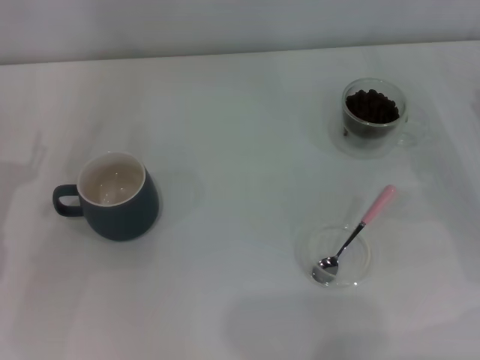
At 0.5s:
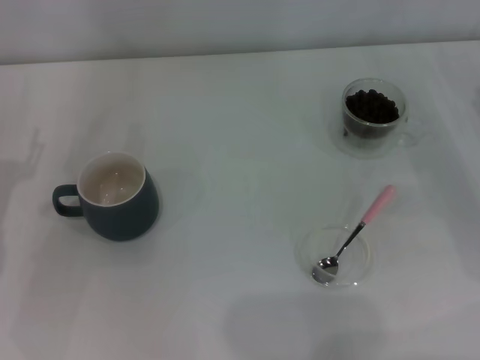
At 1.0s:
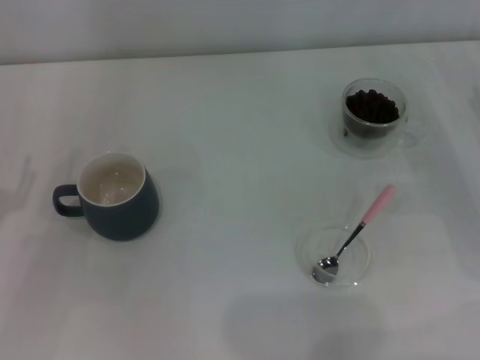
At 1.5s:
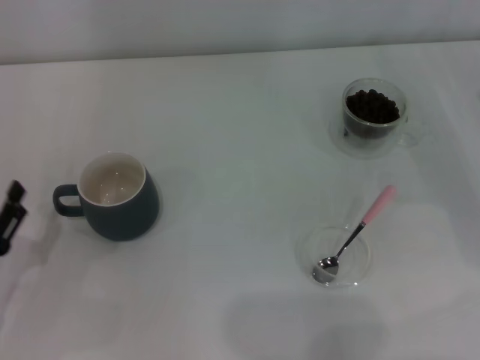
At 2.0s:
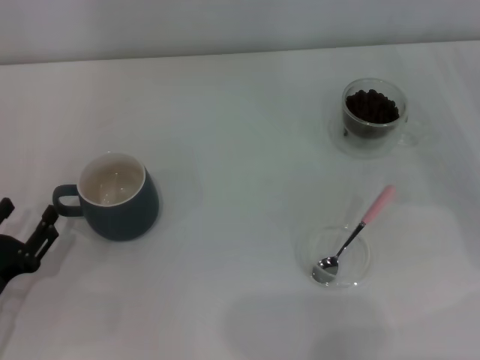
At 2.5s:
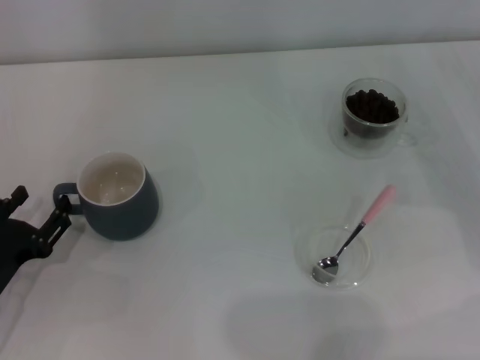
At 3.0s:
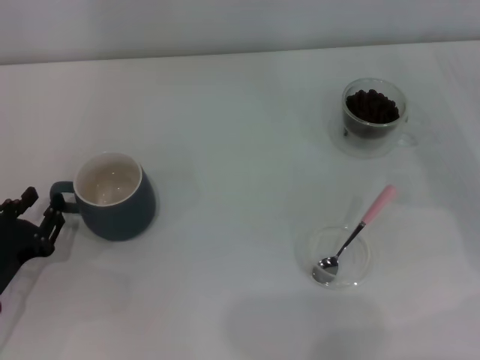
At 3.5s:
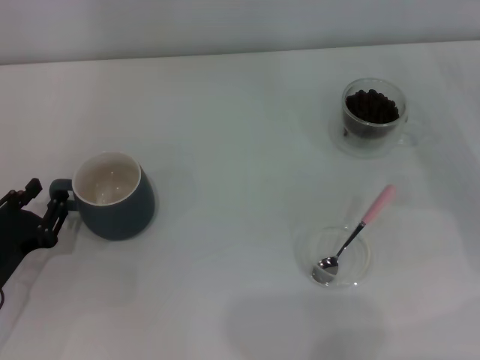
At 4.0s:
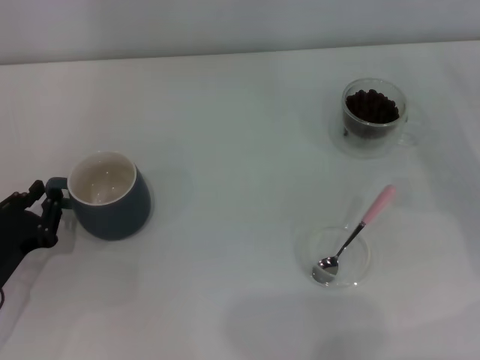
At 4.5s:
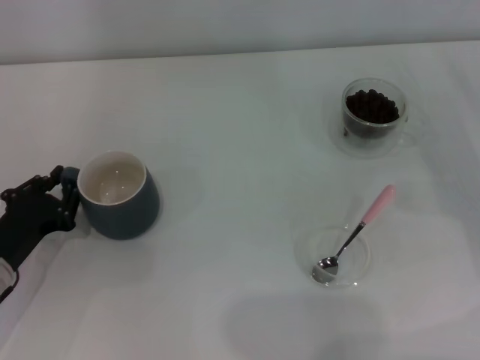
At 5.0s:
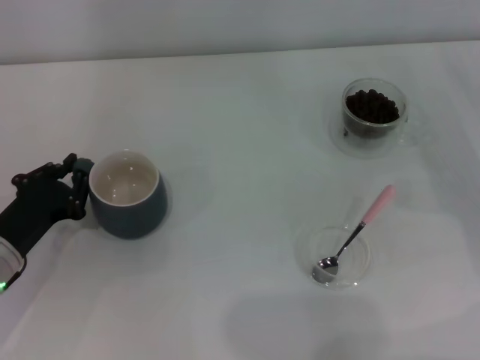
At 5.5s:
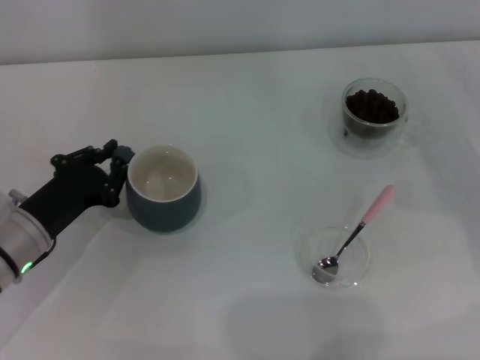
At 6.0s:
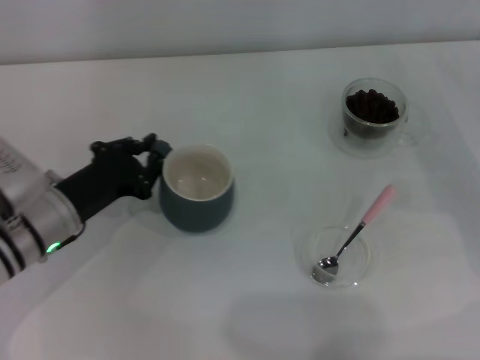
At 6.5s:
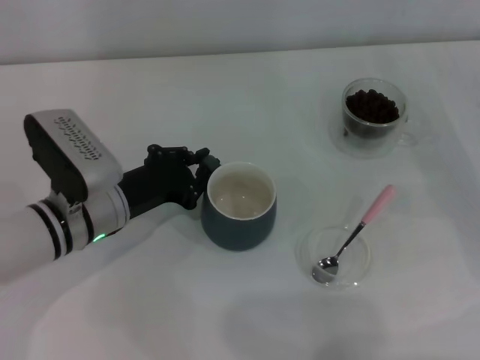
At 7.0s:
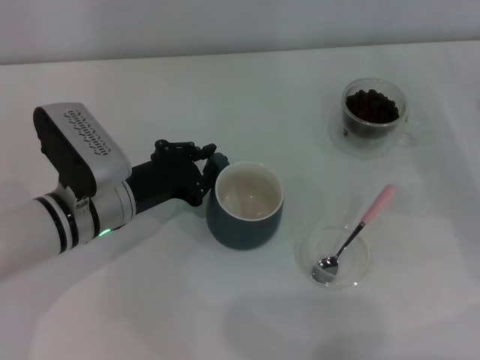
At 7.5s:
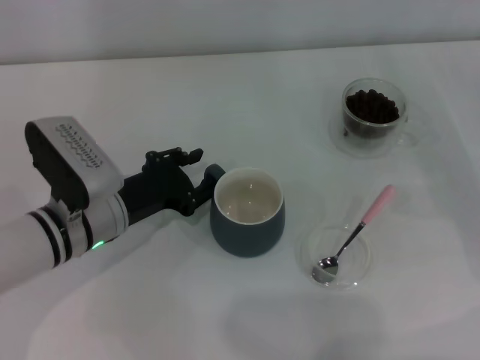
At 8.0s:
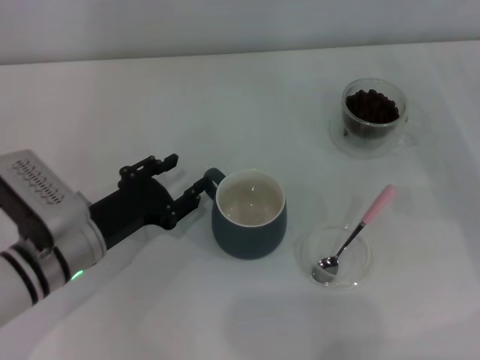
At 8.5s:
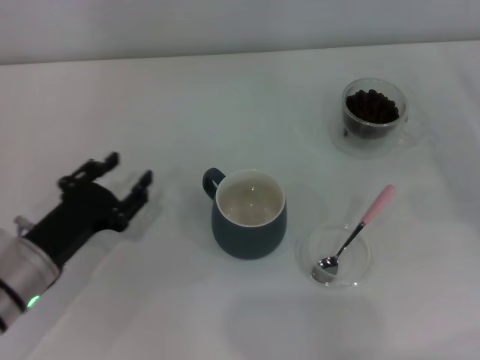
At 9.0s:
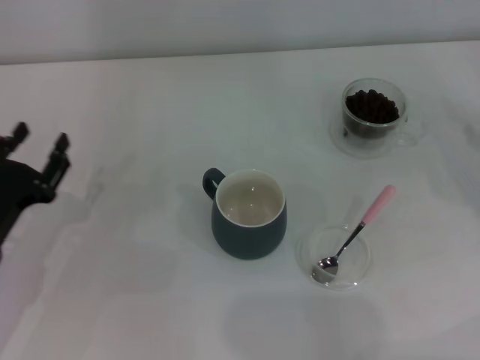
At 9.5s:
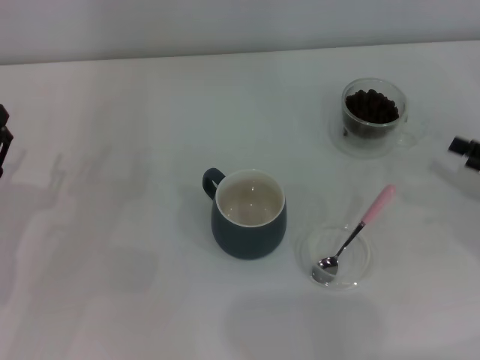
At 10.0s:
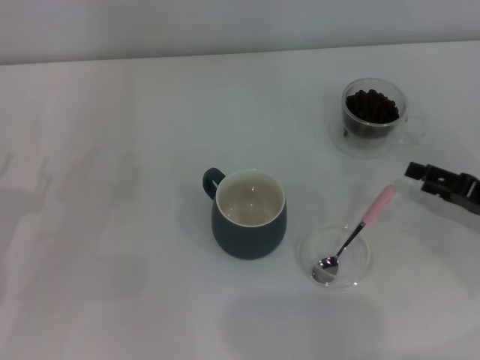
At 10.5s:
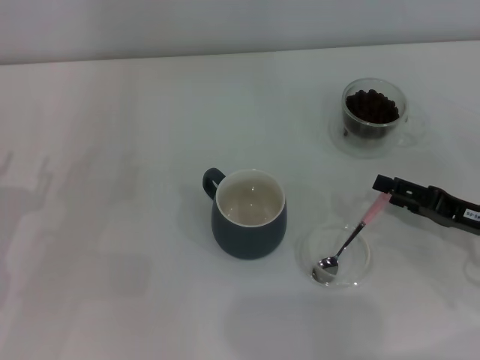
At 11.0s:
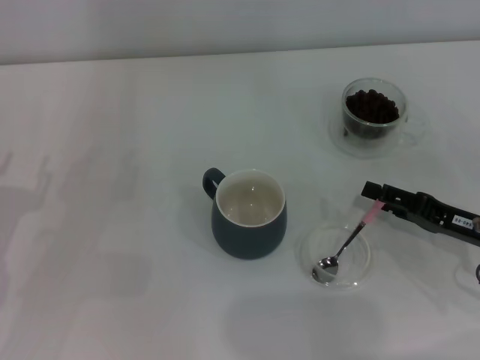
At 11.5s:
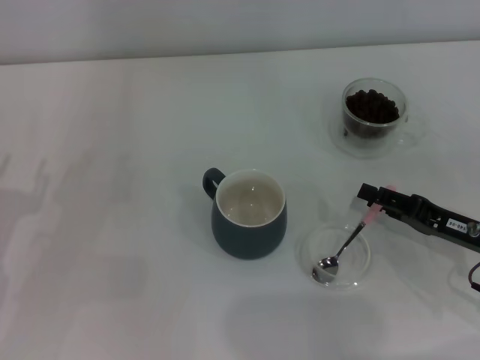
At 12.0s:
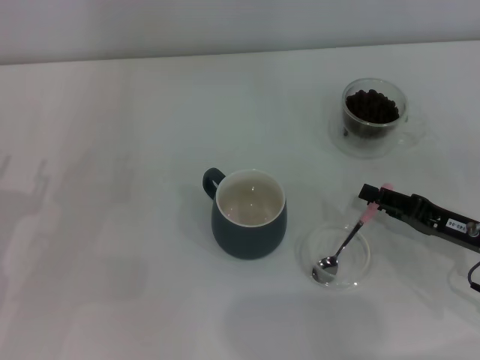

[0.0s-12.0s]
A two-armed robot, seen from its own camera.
Task of the whole recording: Use a pink spoon to take out the coffee beans from the glass and pour them into the gray cup.
Step, 0.0s to 8.0s: Move the cup to the center of view with the left gripper.
0.0s to 2.0s: The left gripper is displaced backward and downward by some 10 cm.
2.0s to 4.0s: The left gripper closes its fingers.
4.0s to 6.0s: The left gripper is displaced forward and to the right by about 10 cm.
6.0s to 8.0s: The left gripper opens.
8.0s to 10.0s: The left gripper goes some 10 cm to the left. The right gripper shifts by about 5 cm.
10.0s to 12.0s: The right gripper is displaced to the left by about 5 cm, and closes.

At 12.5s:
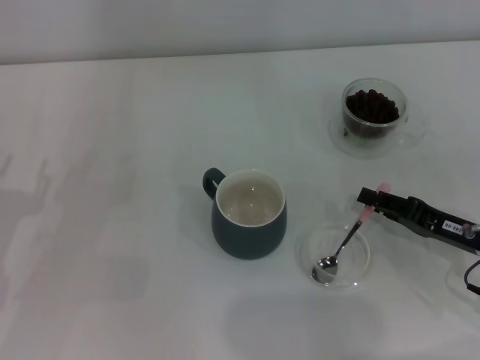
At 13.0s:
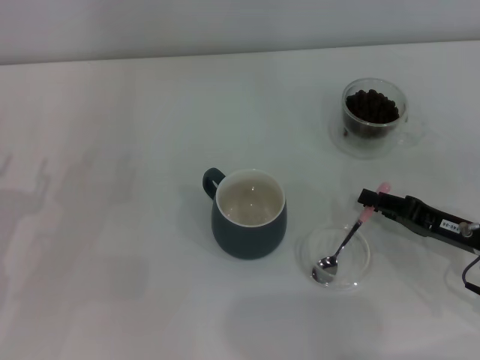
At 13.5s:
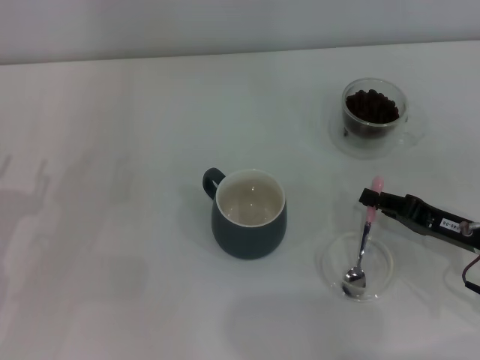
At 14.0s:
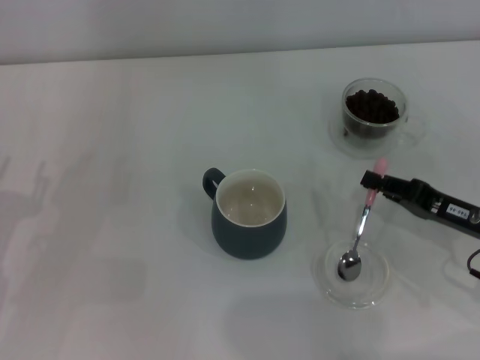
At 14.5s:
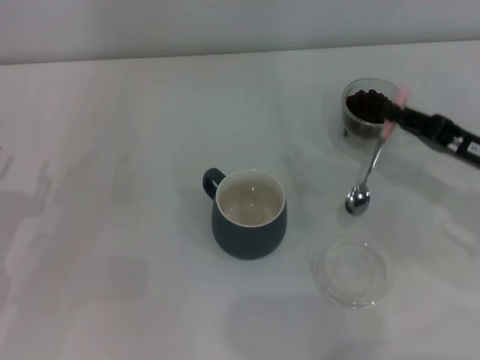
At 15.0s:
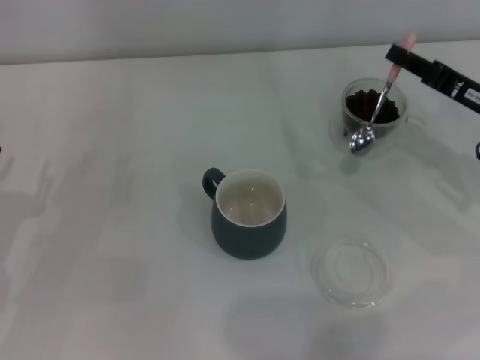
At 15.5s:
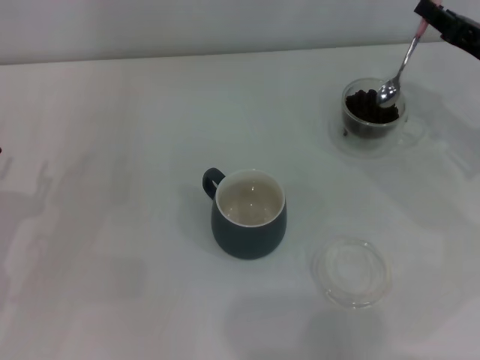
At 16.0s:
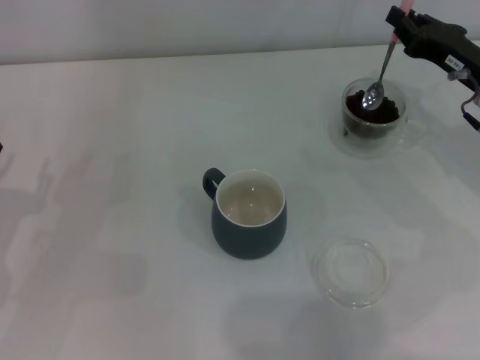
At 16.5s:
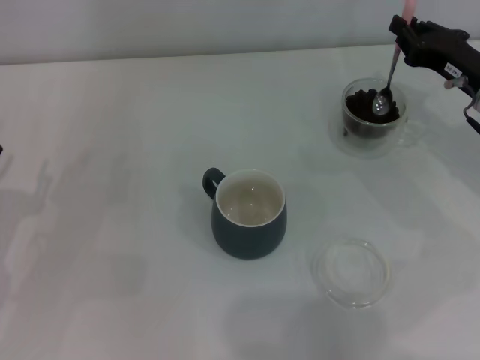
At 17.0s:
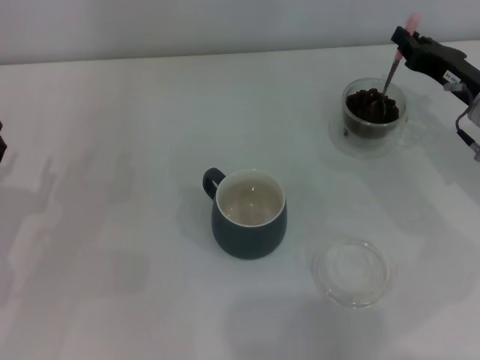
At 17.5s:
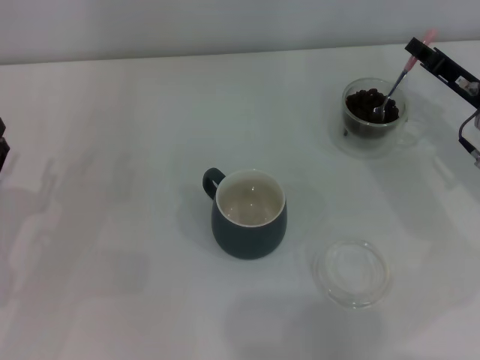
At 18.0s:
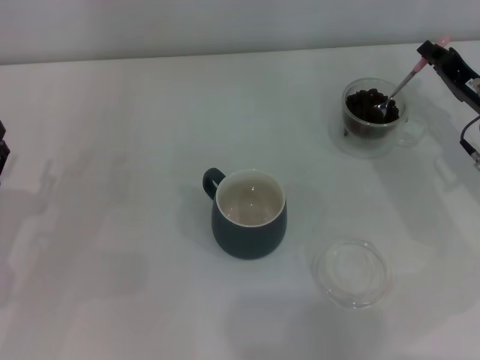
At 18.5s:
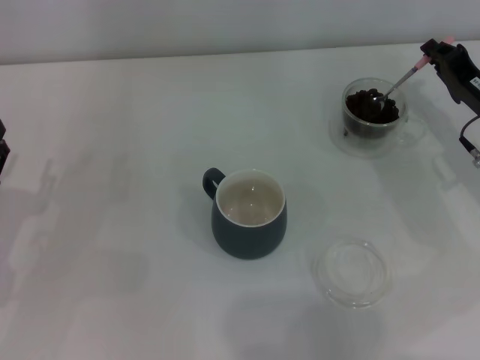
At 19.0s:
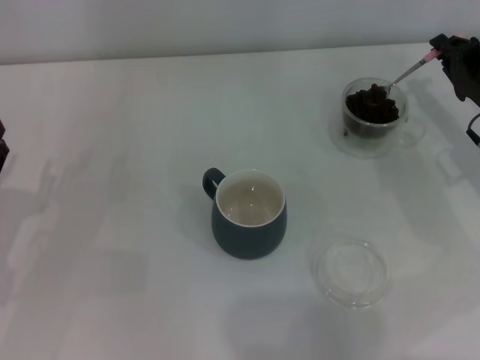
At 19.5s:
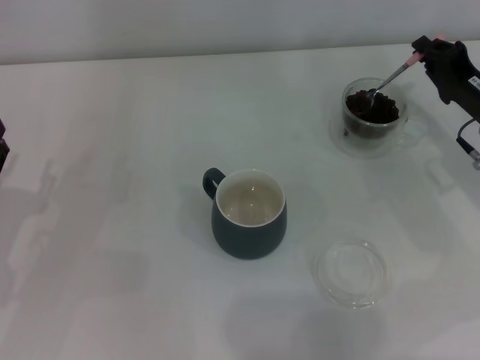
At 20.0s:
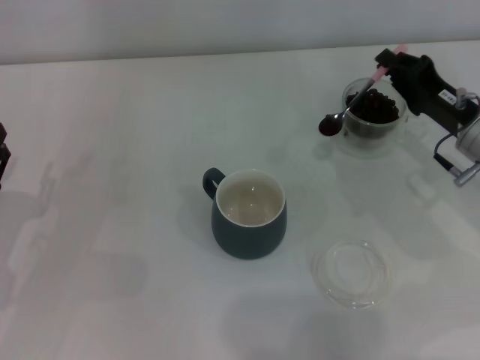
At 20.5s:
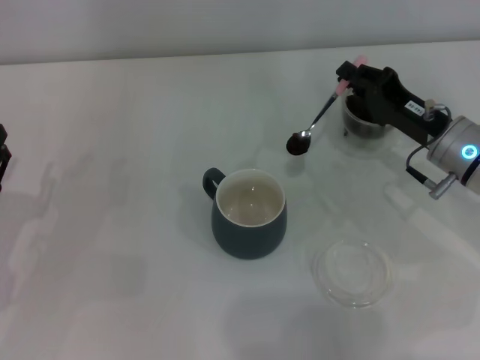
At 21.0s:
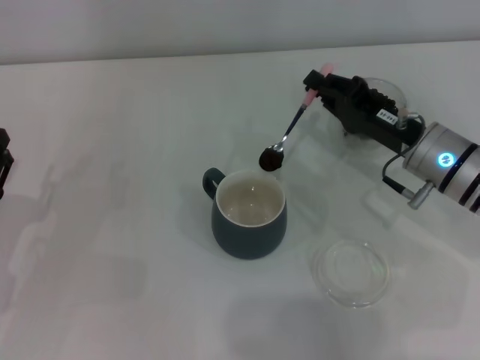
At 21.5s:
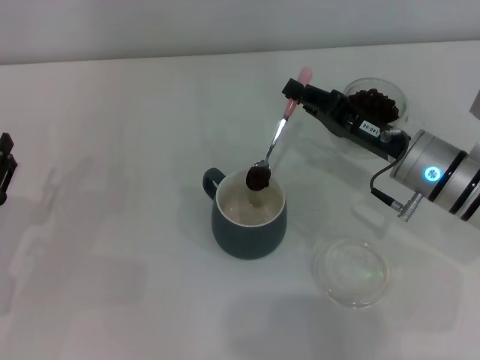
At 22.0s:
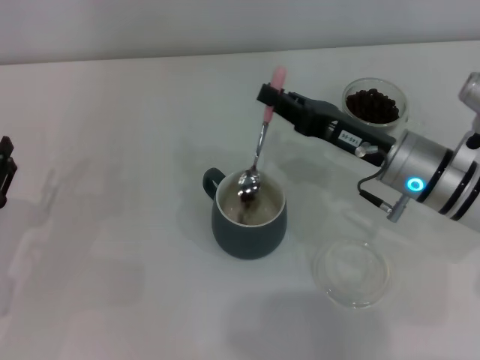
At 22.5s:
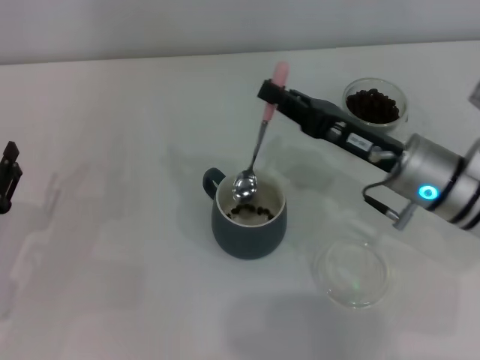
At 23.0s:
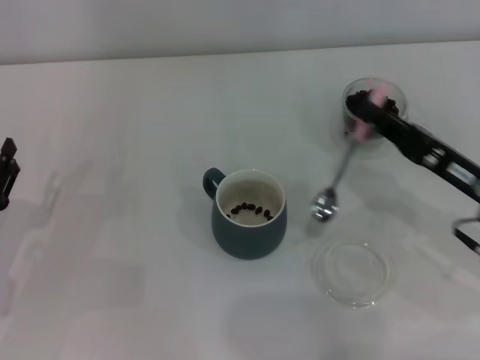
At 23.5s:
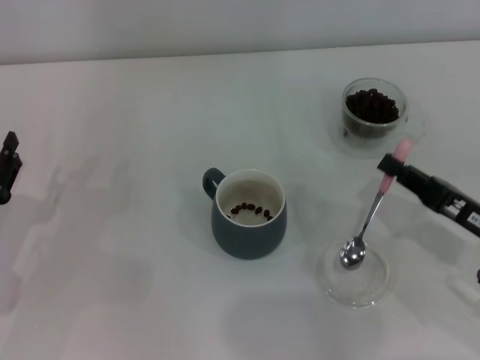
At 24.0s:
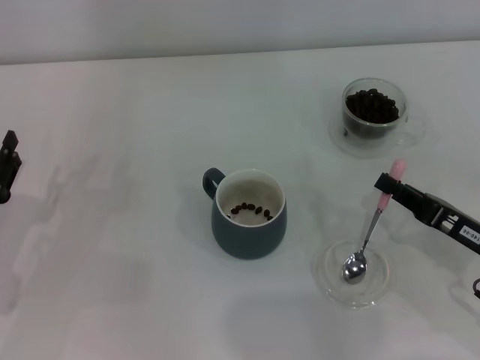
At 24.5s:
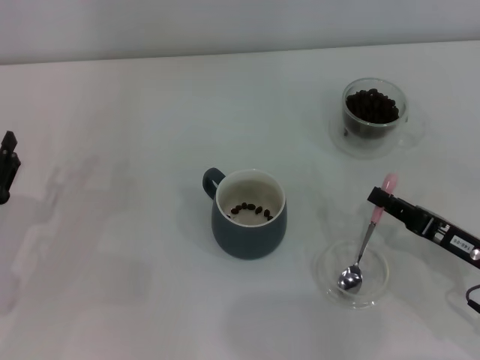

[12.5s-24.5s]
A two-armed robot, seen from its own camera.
Task of the whole recording: Use a pink spoon to take out the coffee beans from the glass and pour them into the gray cup.
Step, 14.5s to 22.0s: Scoop a spoonful of beans into the cup with the right gripper.
12.5s to 14.5s: The right gripper heads upward, covering roughly 5 cm, and closes up.
14.5s to 16.5s: The right gripper shifts about 10 cm forward.
18.5s to 20.5s: The right gripper travels to the left by roughly 5 cm.
20.5s to 22.5s: The right gripper travels to the left by roughly 5 cm.
22.5s to 24.5s: The right gripper goes some 15 cm backward, to the right and downward.

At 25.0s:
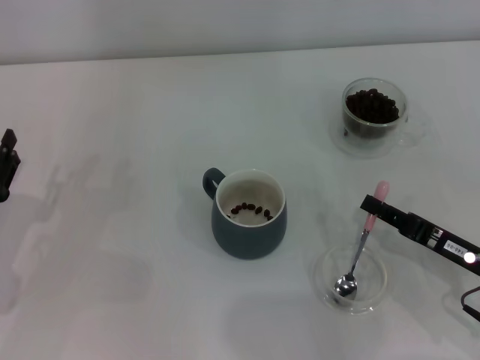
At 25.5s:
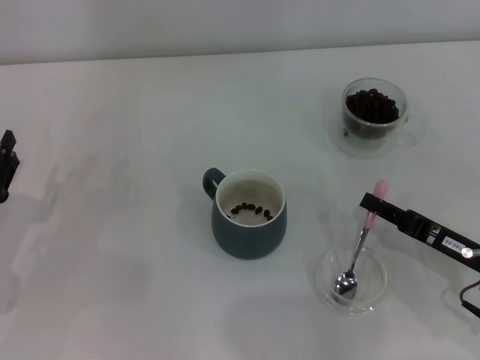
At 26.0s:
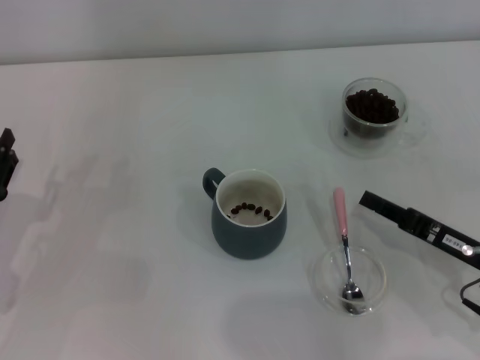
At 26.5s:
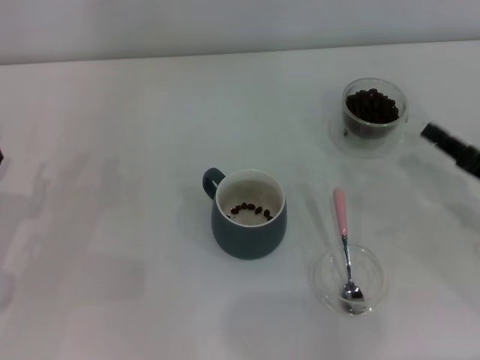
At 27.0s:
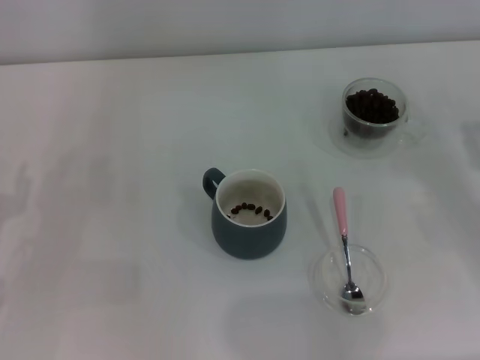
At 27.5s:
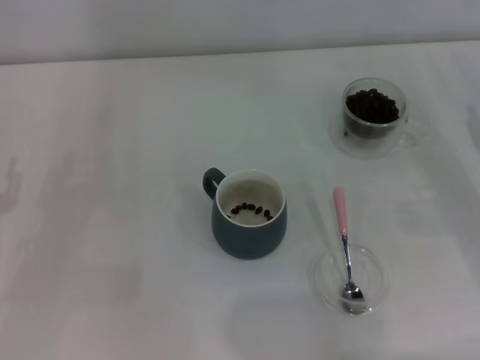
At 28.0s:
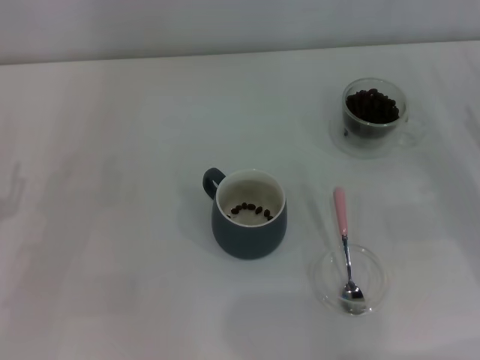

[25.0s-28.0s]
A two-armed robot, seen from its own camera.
Task of the whole recording: Use a pink spoon to take out the coffee beans from the glass and pour them into the gray cup.
25.0s to 26.5s: The right gripper shifts by about 5 cm.
26.5s to 28.0s: The right gripper ends up approximately 5 cm from where it was, and opens.
